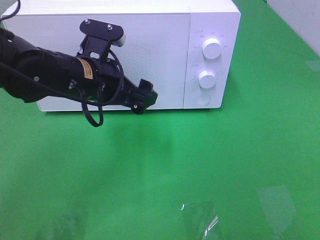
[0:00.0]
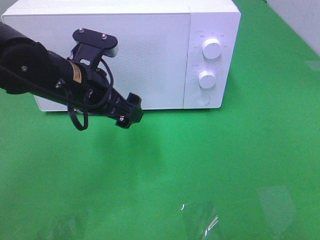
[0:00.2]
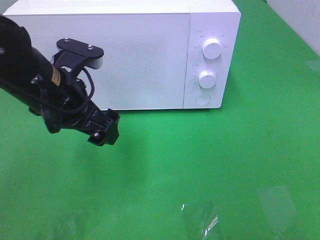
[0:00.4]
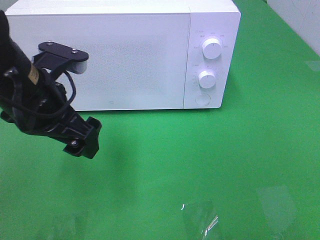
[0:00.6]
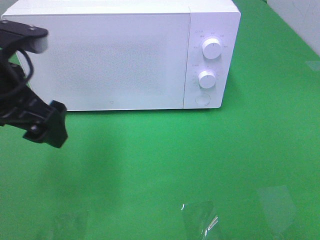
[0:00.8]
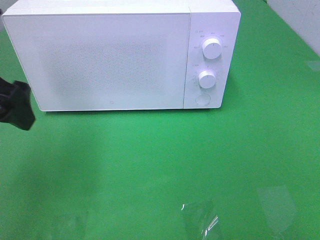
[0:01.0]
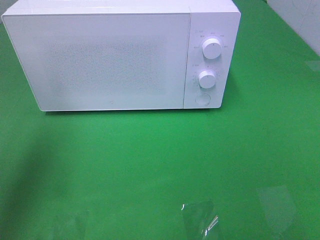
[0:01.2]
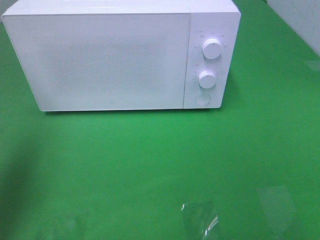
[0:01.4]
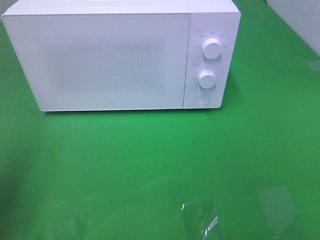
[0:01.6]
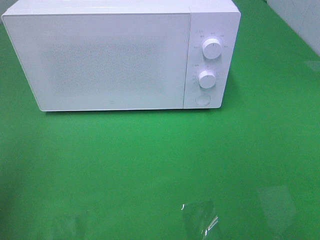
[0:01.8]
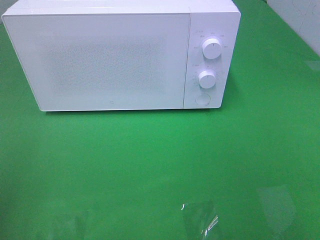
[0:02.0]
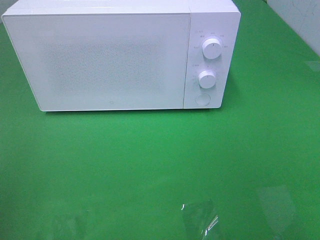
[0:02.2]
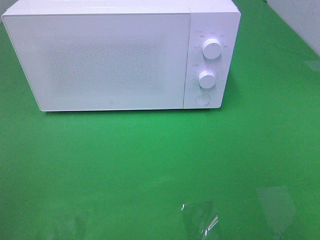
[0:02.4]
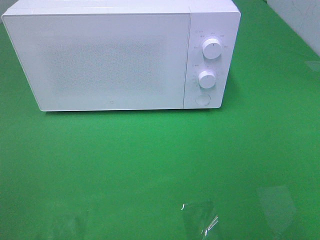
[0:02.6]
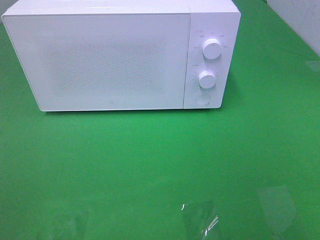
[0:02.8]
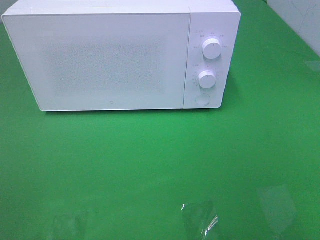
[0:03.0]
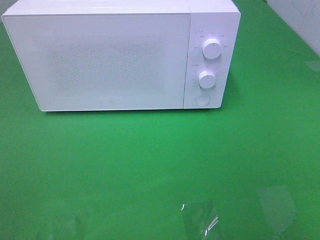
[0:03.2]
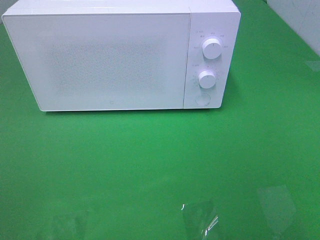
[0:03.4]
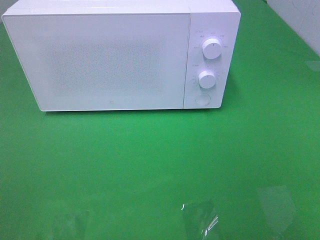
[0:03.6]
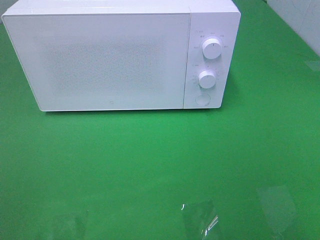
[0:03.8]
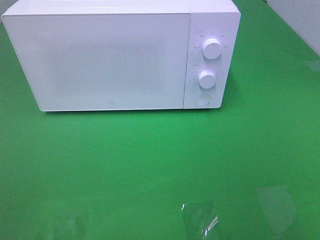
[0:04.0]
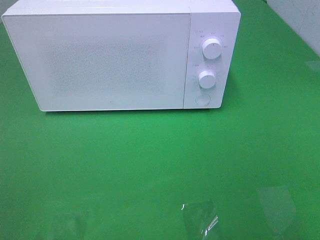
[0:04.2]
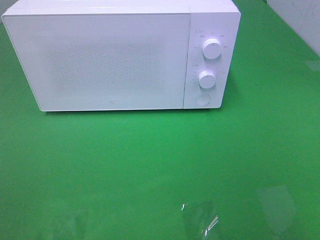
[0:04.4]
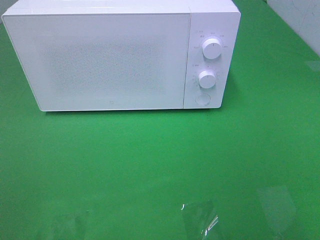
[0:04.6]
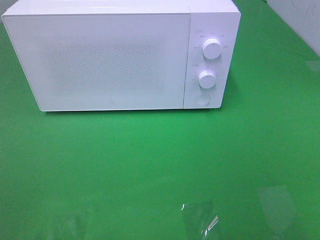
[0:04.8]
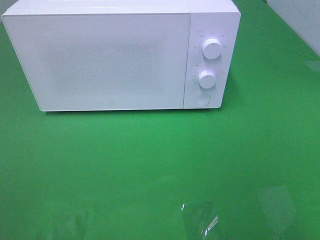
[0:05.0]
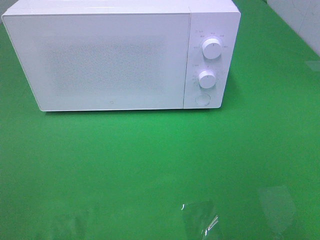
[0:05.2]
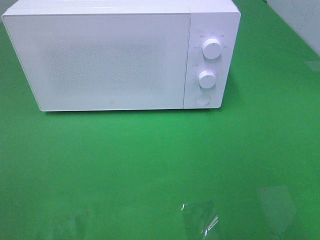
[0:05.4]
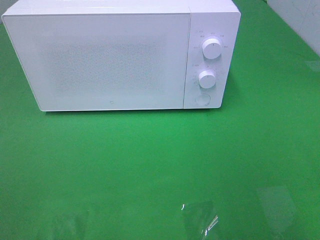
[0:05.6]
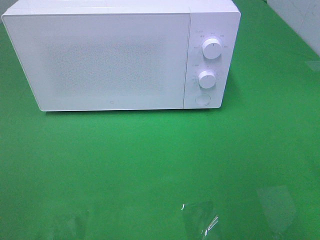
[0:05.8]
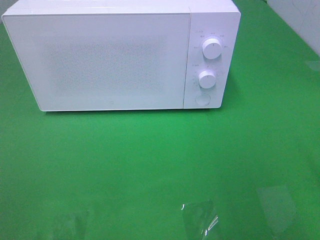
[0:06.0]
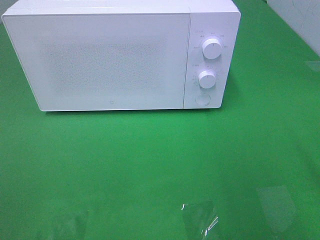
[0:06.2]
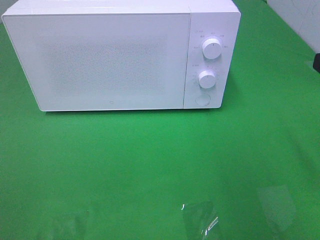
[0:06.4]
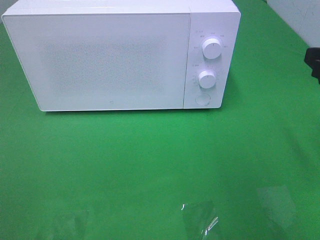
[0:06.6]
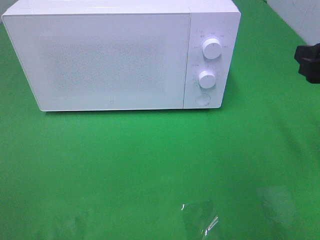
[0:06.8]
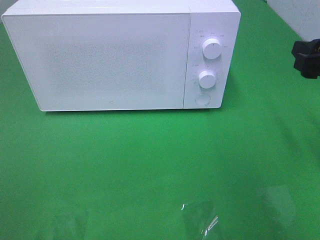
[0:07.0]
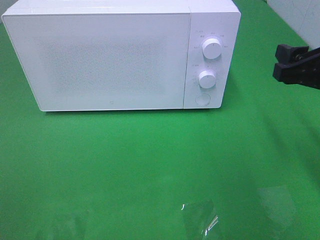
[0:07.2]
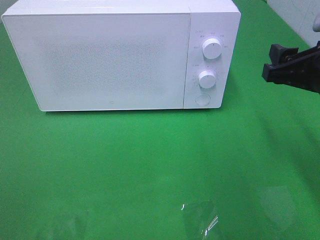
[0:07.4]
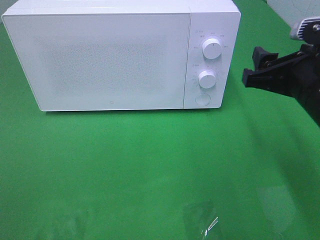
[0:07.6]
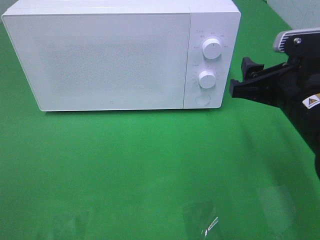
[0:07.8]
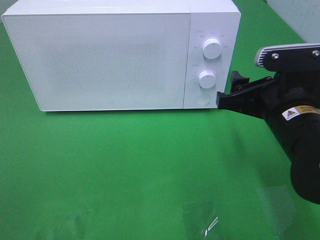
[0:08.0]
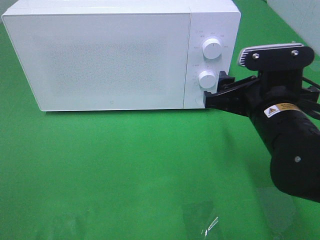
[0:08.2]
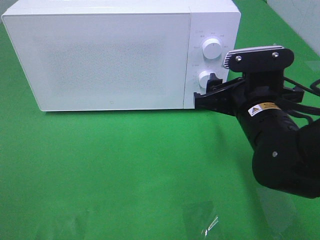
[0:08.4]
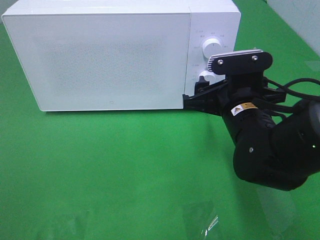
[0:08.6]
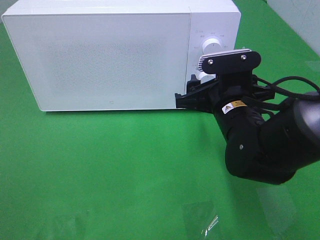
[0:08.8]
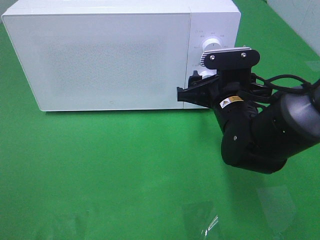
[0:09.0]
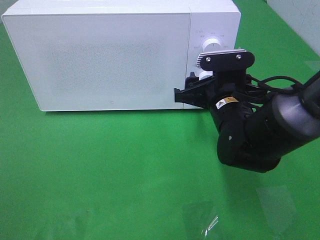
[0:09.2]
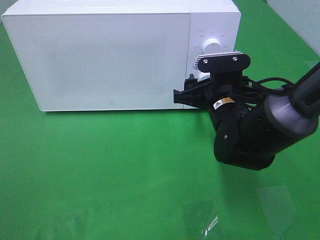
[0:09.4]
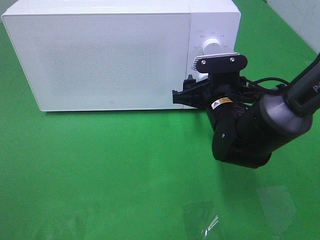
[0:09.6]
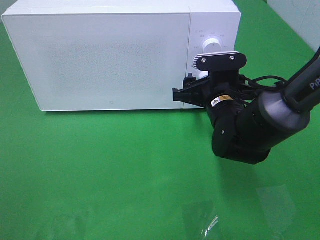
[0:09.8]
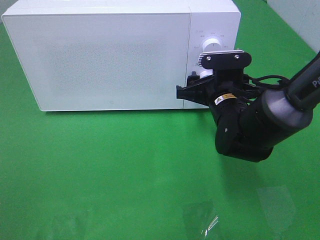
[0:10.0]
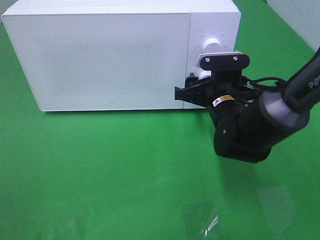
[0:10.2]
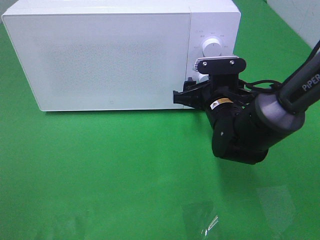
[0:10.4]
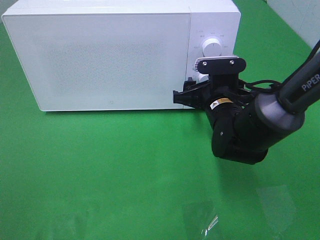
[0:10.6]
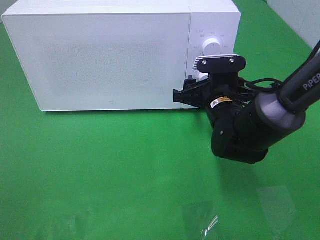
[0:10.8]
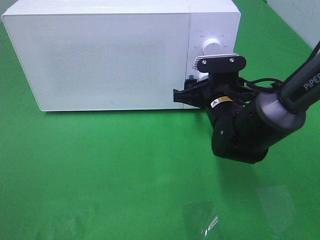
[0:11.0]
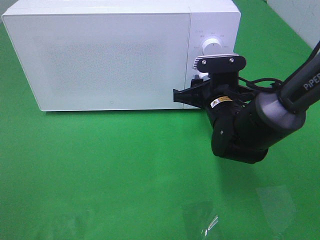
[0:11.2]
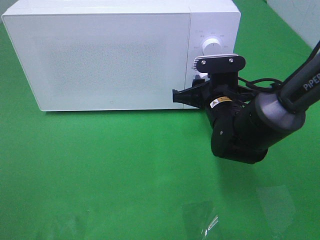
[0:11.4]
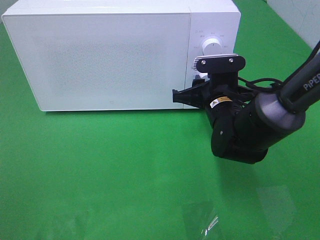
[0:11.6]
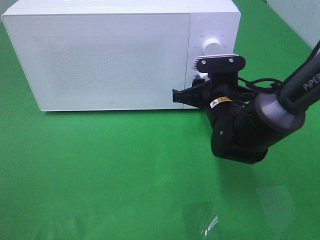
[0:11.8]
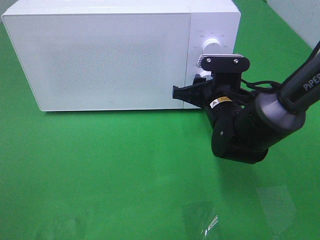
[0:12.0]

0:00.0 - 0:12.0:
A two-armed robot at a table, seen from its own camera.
Task of the whole recording: Heat the burger.
0:00.0 - 0:01.6: The left gripper heads to the left, backward and upward, covering roughly 25 cm.
0:01.6 - 0:03.0: The left gripper moves backward, some 15 cm.
0:03.0 - 0:04.4: The two grippers keep their place.
0:06.0 - 0:07.6: The right gripper travels forward, to the left and downward by some 15 cm.
0:07.6 - 0:09.0: The right gripper travels to the left, downward and forward by approximately 15 cm.
0:09.0 - 0:10.4: There are only small adjustments of the grippers.
0:10.4 - 0:12.0: The right gripper closes.

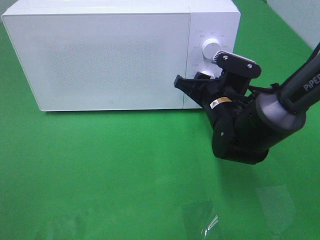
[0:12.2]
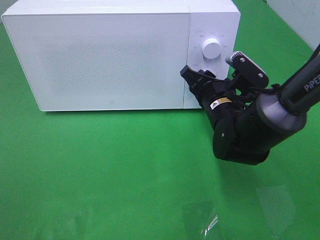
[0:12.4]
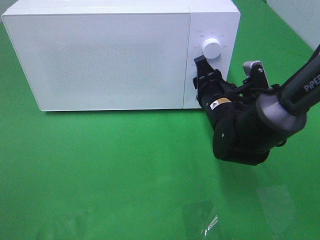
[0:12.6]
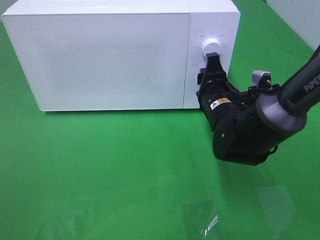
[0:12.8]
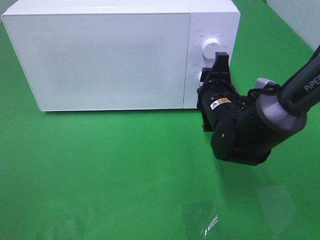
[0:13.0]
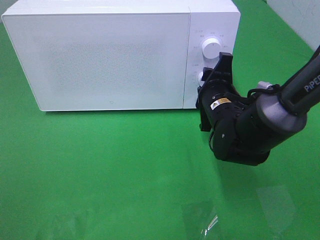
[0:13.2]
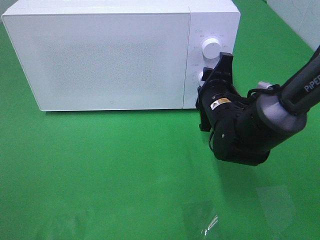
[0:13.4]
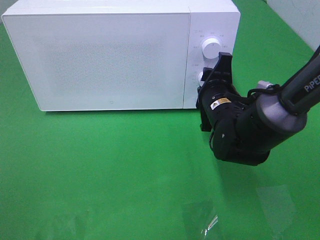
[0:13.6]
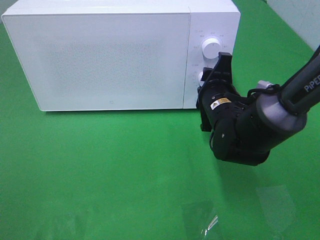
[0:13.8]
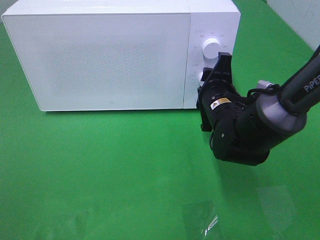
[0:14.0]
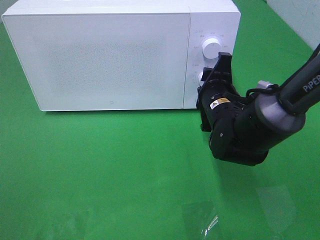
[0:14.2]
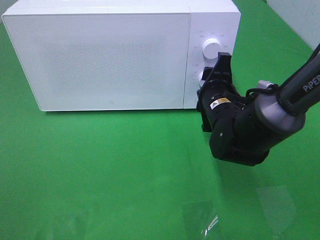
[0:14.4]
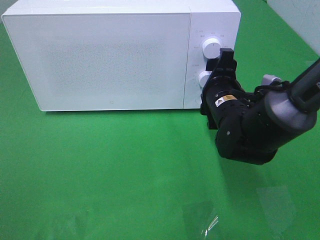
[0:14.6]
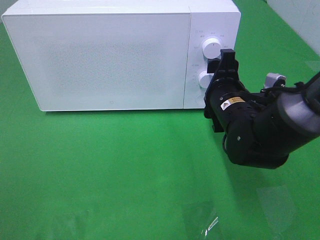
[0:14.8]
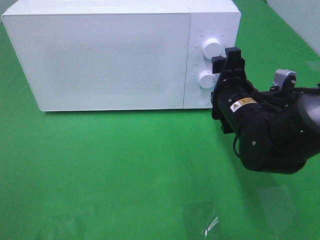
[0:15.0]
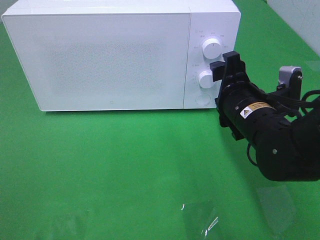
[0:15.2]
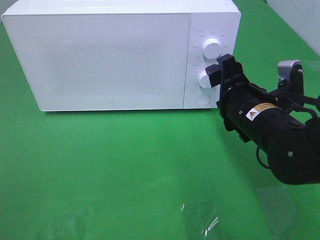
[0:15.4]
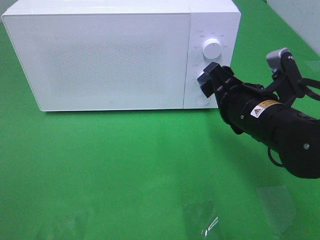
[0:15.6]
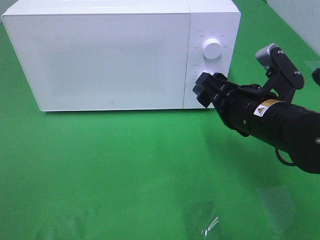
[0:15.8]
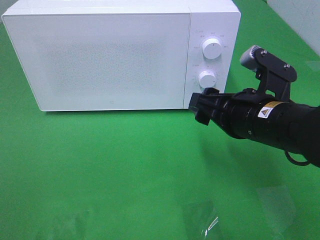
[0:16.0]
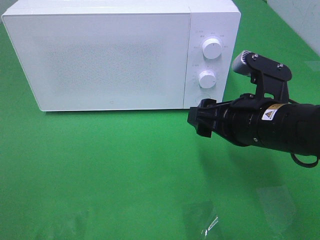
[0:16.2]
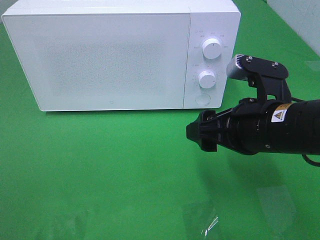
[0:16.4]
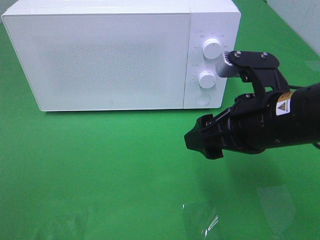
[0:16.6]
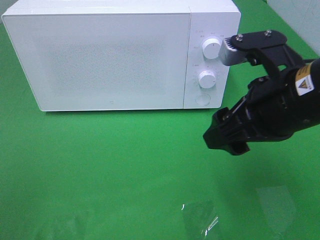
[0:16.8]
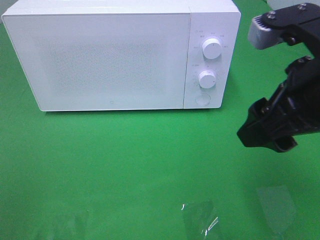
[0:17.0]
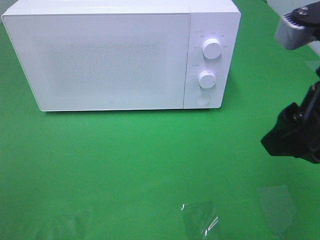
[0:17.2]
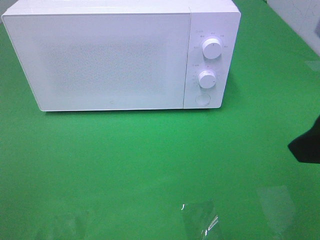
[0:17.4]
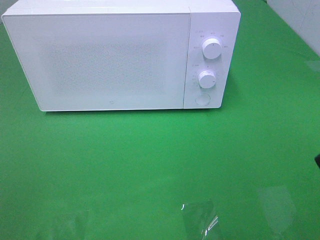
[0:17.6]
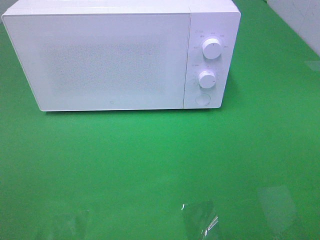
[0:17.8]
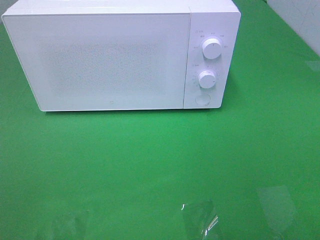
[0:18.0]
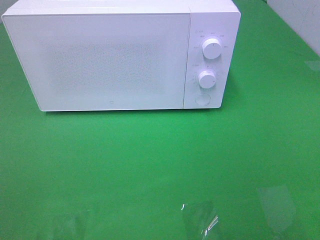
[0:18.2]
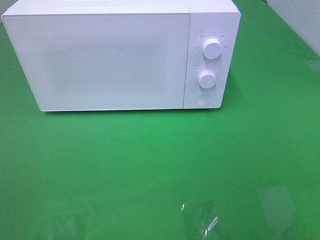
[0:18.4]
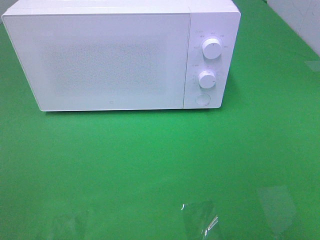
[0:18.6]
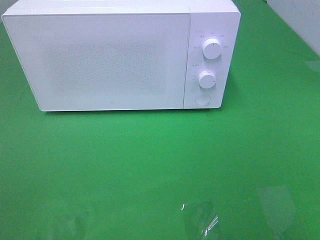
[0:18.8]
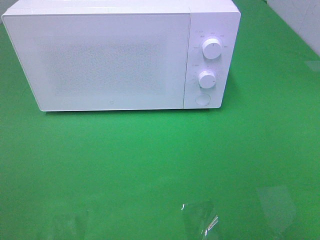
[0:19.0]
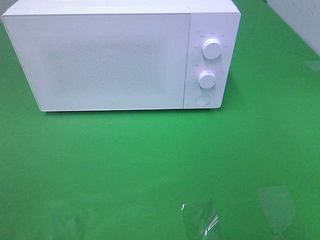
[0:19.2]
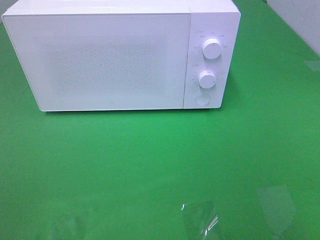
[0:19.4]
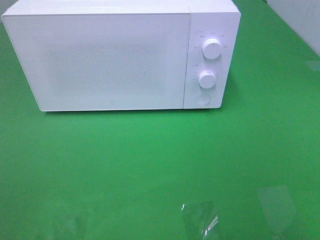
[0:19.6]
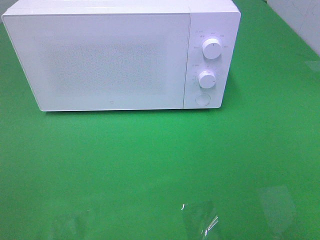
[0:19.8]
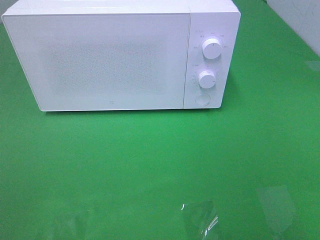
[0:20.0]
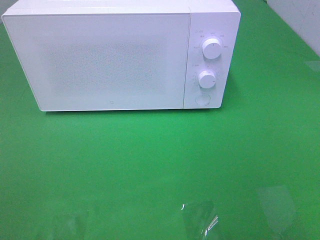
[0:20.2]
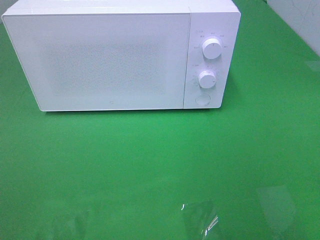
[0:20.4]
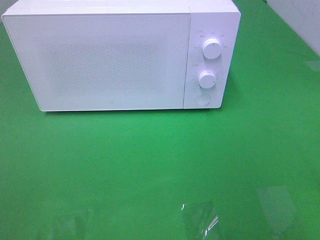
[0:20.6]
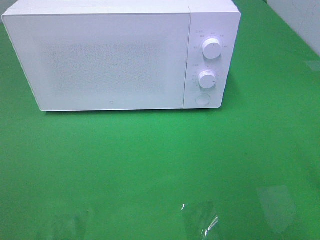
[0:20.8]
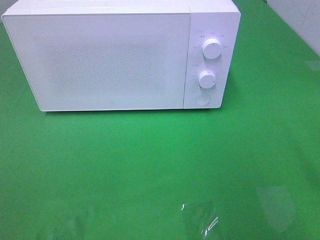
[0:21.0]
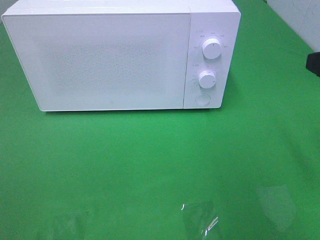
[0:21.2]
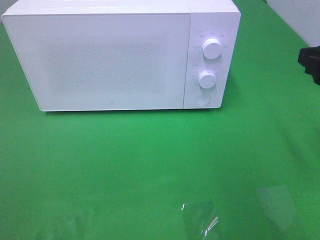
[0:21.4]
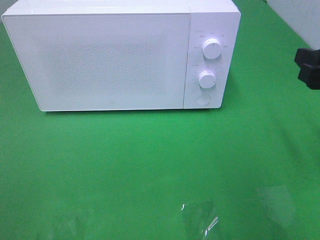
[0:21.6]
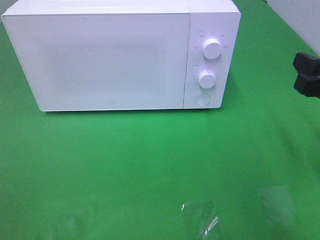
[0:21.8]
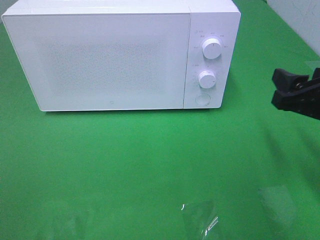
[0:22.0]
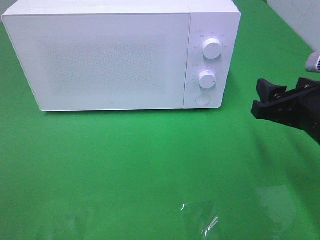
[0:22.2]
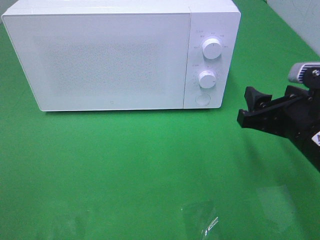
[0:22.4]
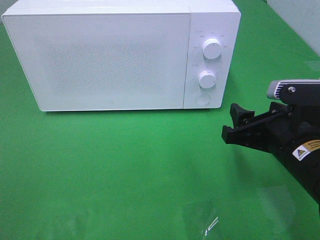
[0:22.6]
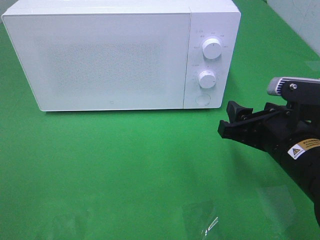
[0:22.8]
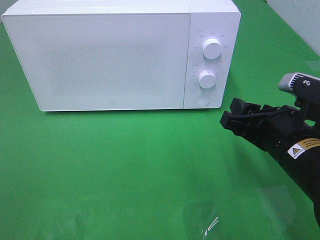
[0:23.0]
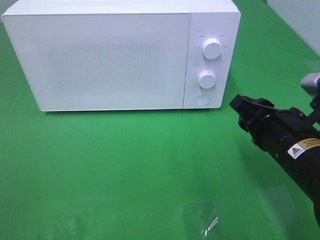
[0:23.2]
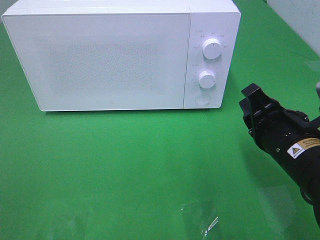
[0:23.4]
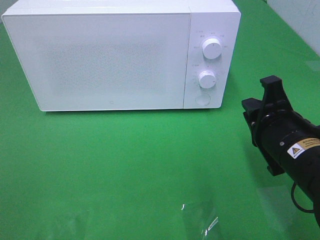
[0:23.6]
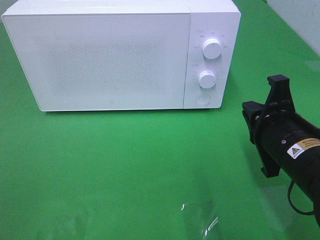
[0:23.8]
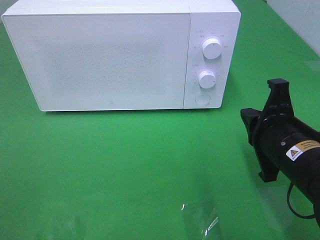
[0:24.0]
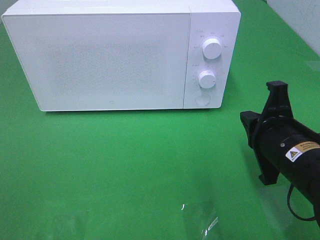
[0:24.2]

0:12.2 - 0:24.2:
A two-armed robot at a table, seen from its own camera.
Task of the whole recording: Heat the burger.
Step, 0:12.2 - 0:14.4: Right hand: twist timer button.
0:13.8 - 0:15.2: The right gripper shifts some 5 cm backward, and opens.
0:15.2 - 0:16.6: The right gripper is displaced backward and upward by roughly 10 cm.
0:16.6 - 0:18.2: The right gripper is displaced backward, to the right and upward by approximately 20 cm.
0:21.2 - 0:22.6: The right gripper moves downward and to the left, some 15 cm.
0:22.6 - 0:24.2: The right gripper closes.
